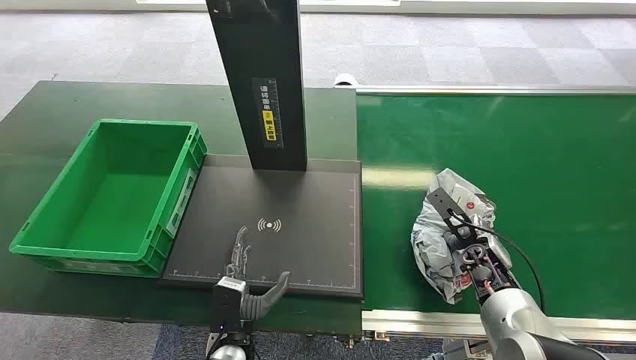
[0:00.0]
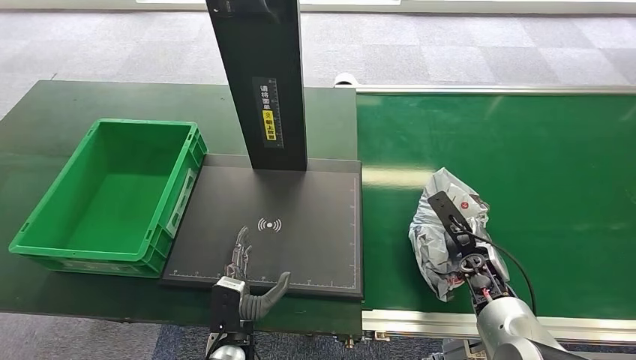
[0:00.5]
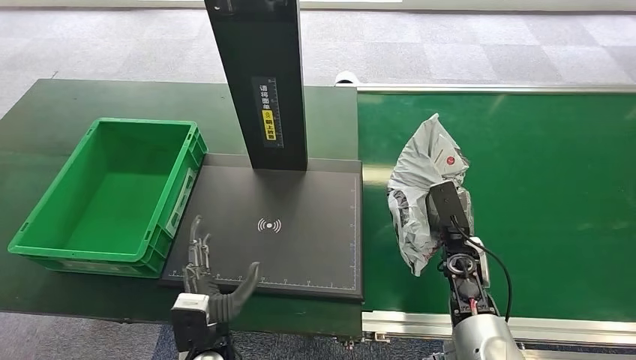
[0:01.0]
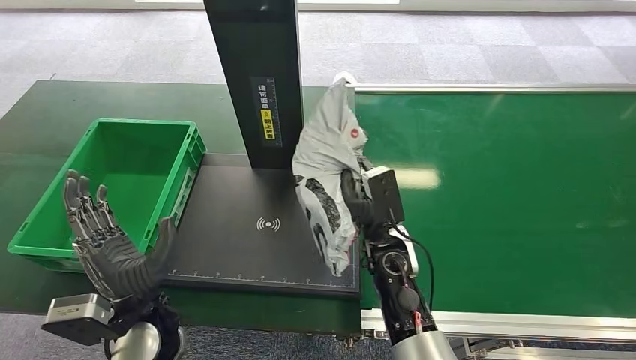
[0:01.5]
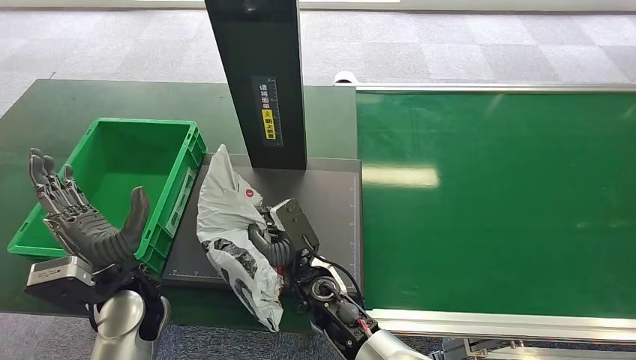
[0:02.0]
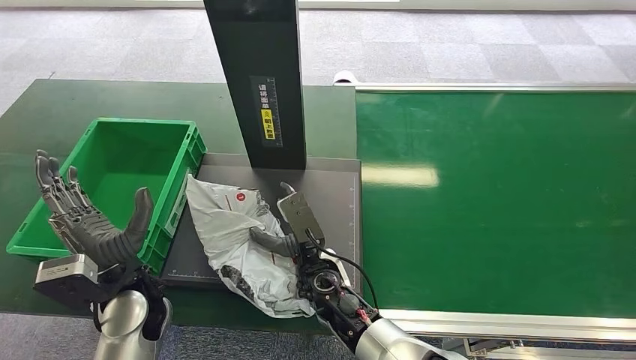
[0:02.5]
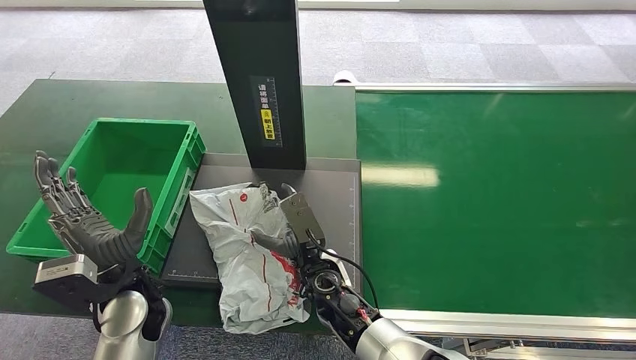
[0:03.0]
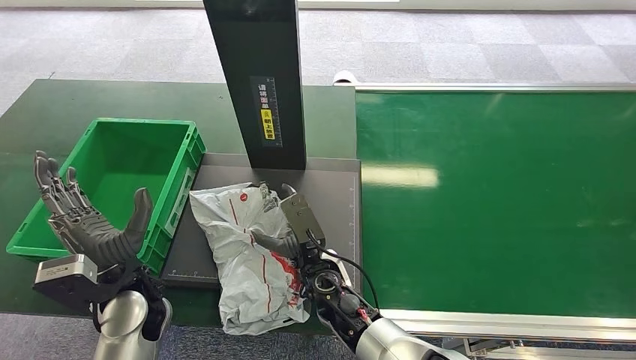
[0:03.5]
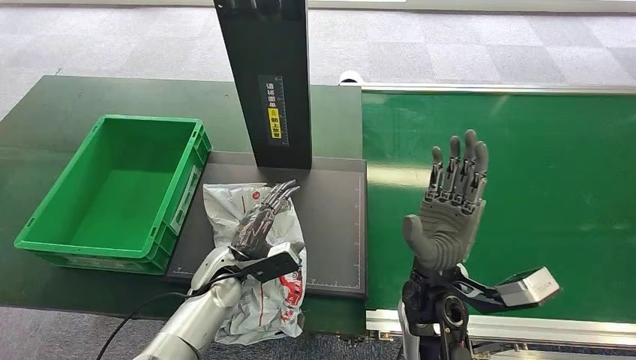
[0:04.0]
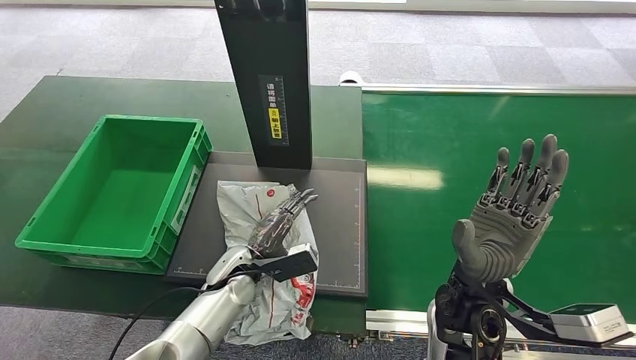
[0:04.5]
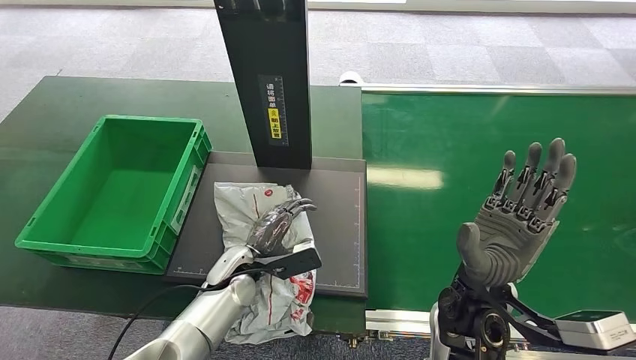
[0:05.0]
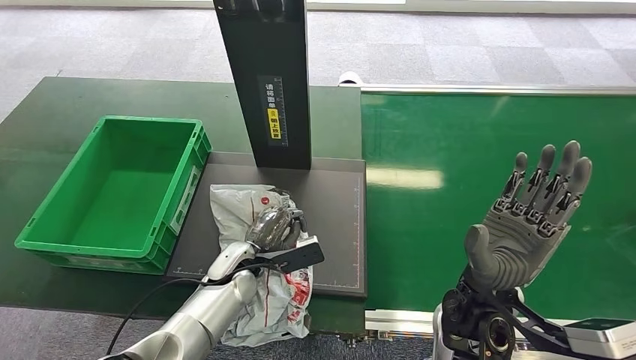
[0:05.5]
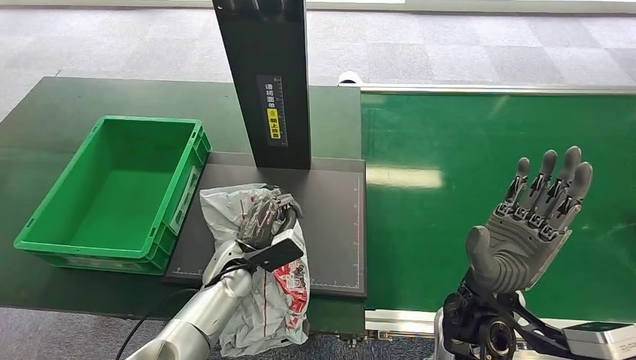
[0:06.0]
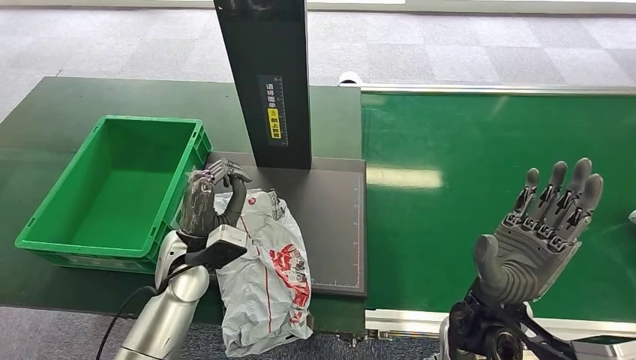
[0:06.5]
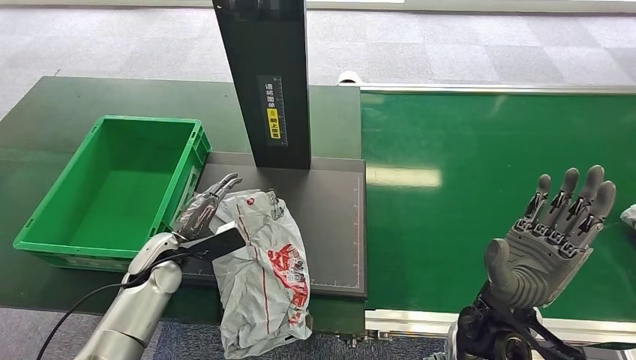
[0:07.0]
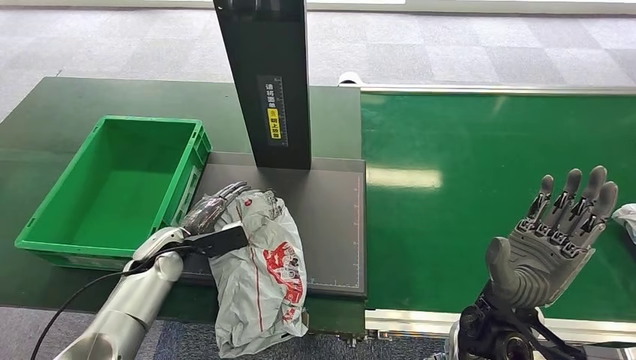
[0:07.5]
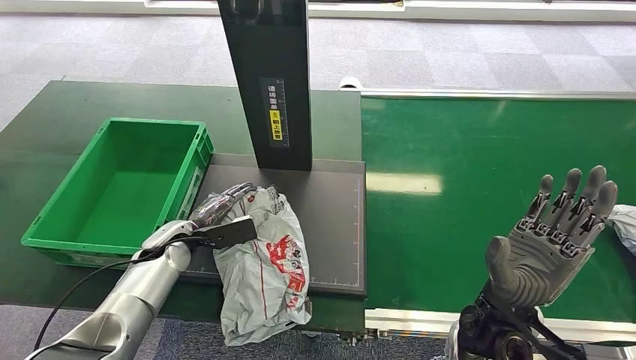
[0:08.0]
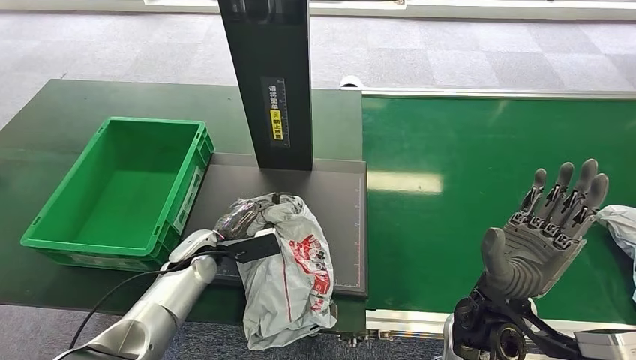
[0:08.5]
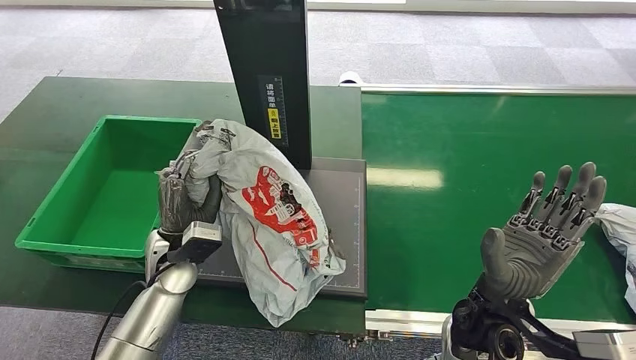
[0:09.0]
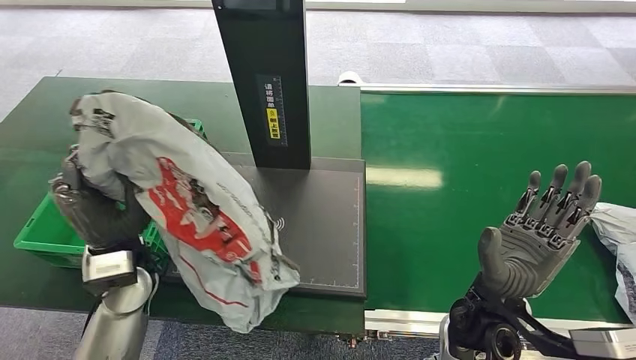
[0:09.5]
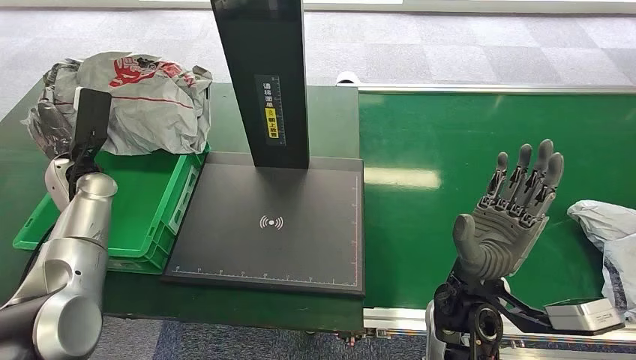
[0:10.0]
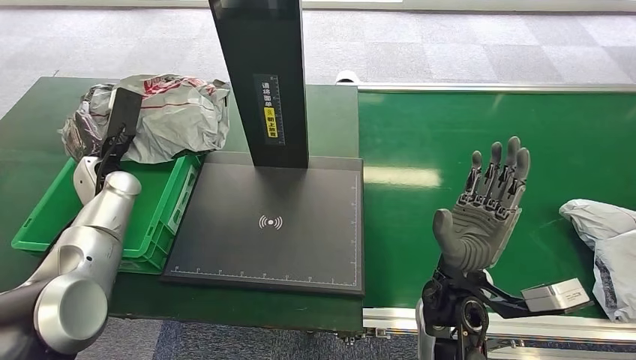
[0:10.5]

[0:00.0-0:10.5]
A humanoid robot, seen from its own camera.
Step, 0:00.0 to 0:01.0: Pick up the package from the conveyor belt.
Step, 0:02.0 to 0:03.5: Place the package onto the inbound machine.
Step, 0:04.0 to 0:09.0: Pick up the package from the inbound machine.
0:04.0 to 0:06.5: The right hand shifts roughly 5 cm to the right. Meanwhile the left hand heads upward, covering roughly 5 cm.

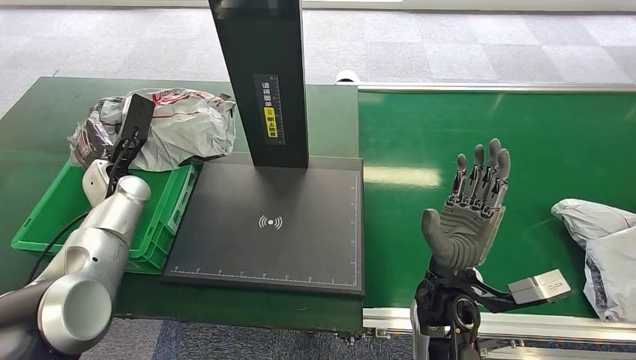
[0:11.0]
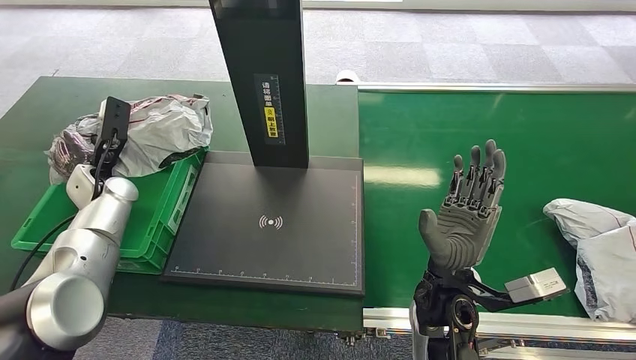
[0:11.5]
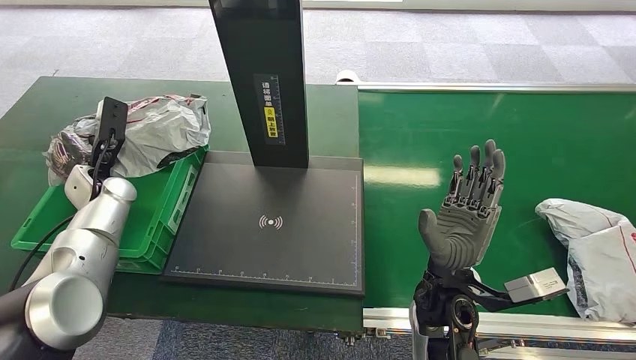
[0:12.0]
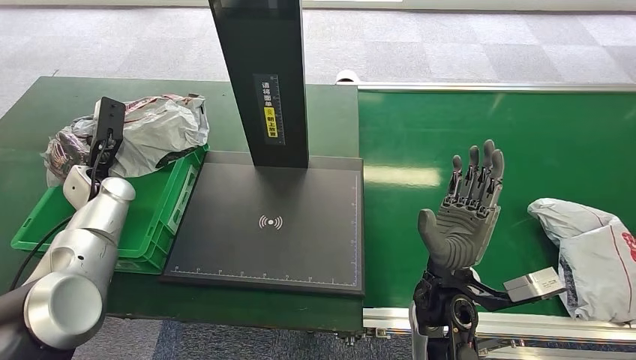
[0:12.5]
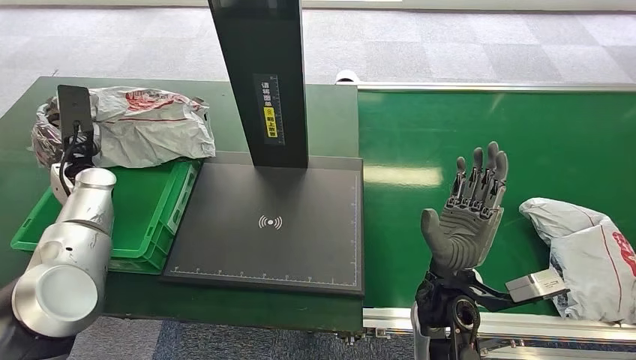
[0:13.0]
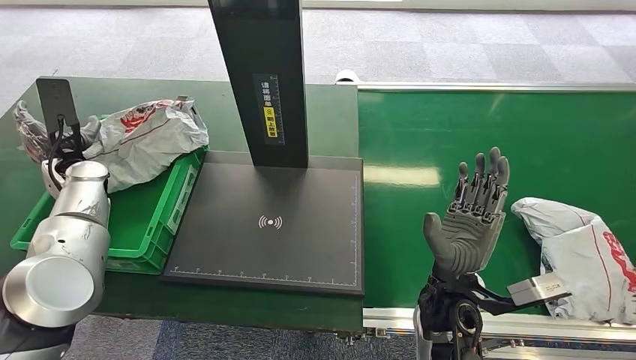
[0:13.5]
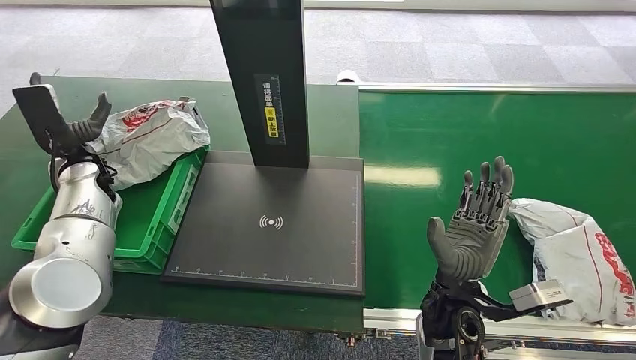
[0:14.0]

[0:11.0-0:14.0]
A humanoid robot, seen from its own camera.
Step, 0:11.0 to 0:14.0: Place the package into the parcel locker.
0:11.0 to 0:12.5: The hands stay close to where they were, moving slightly.

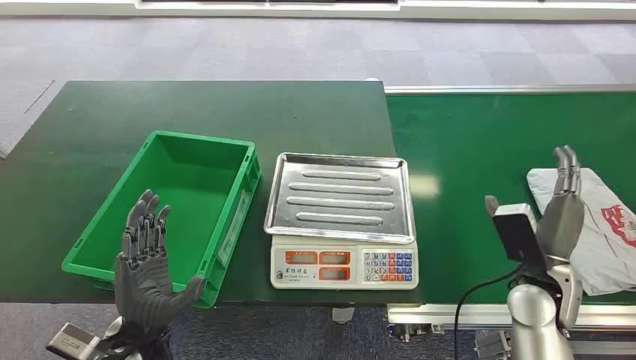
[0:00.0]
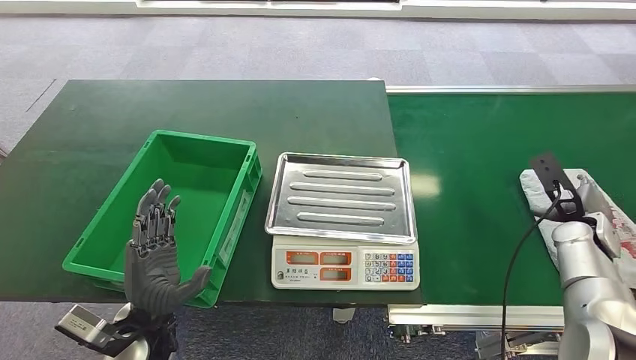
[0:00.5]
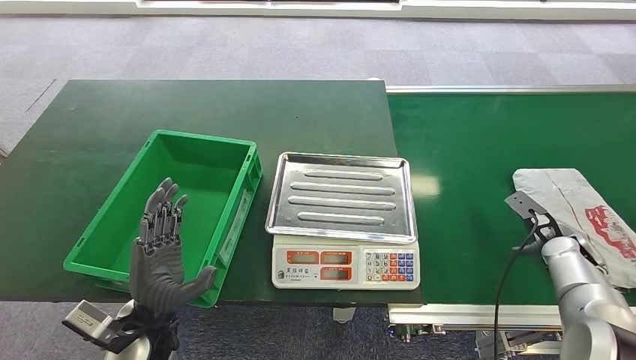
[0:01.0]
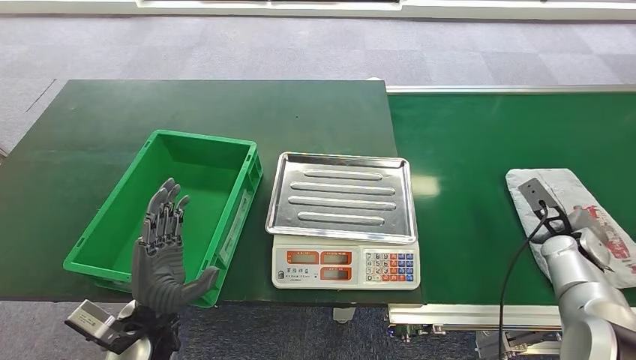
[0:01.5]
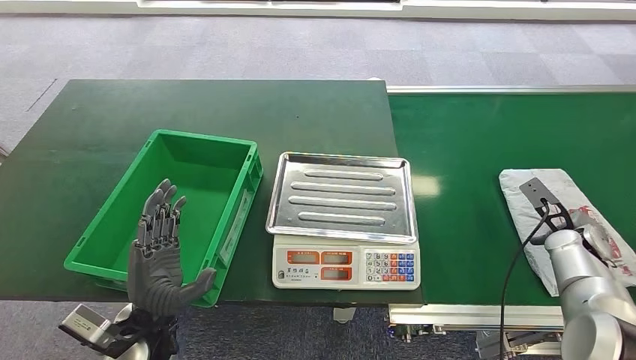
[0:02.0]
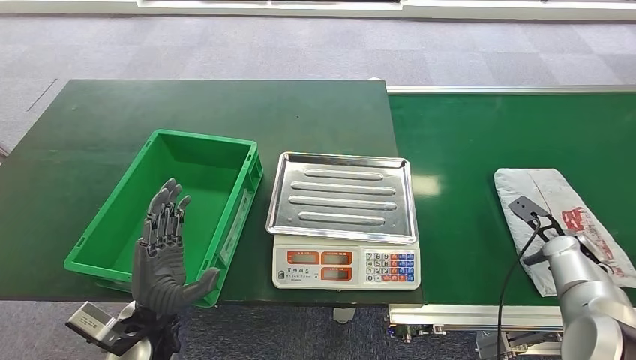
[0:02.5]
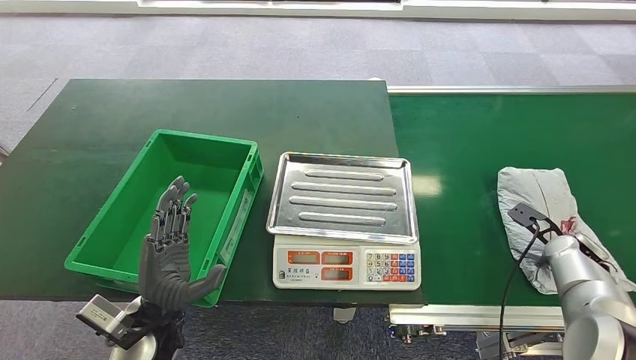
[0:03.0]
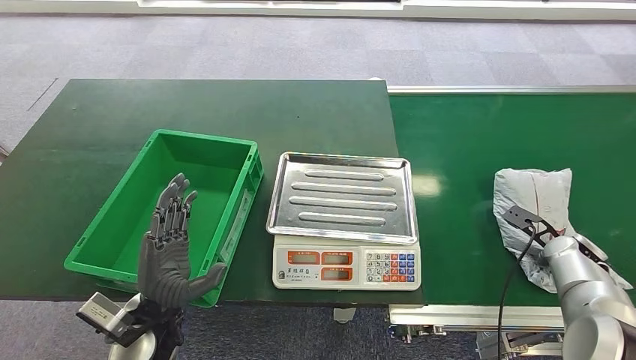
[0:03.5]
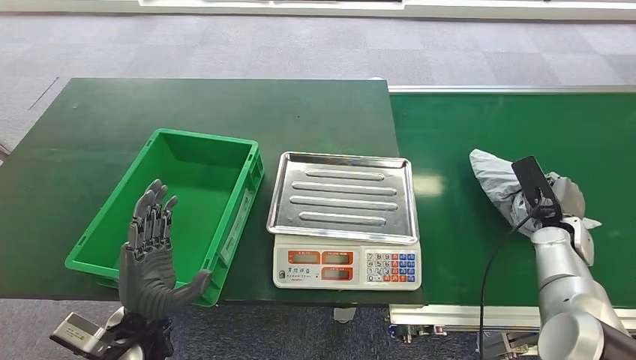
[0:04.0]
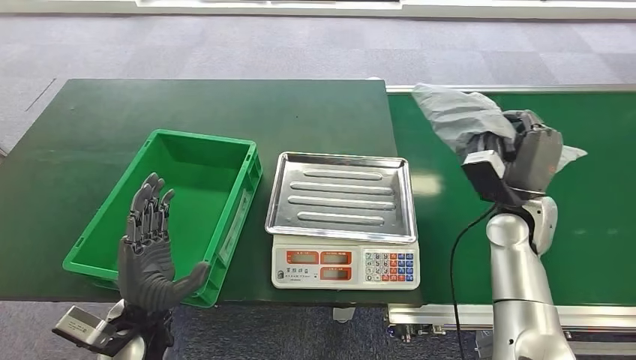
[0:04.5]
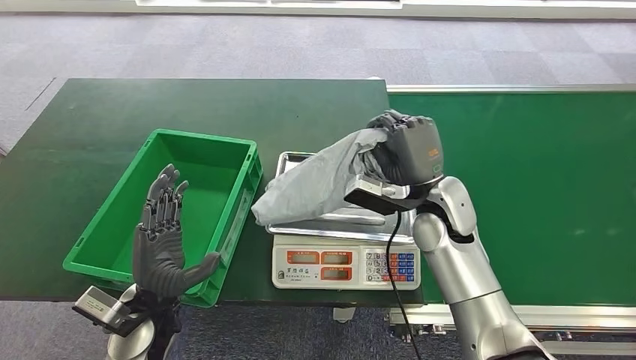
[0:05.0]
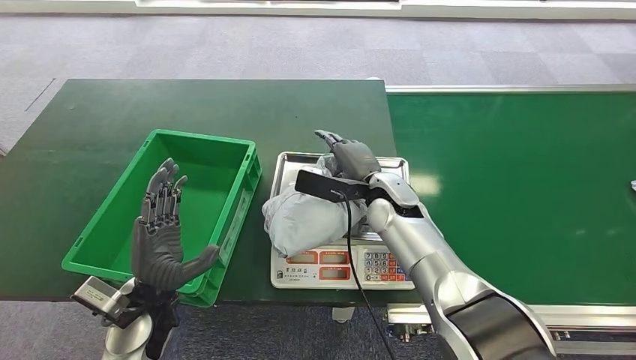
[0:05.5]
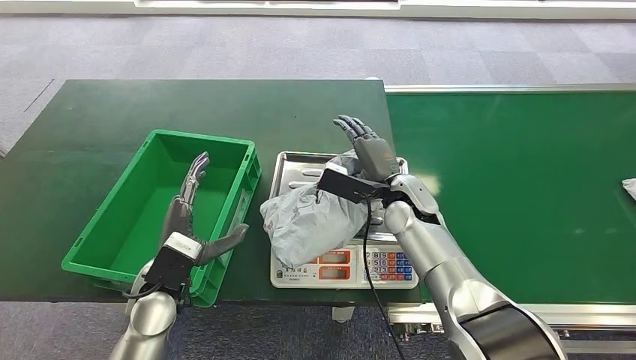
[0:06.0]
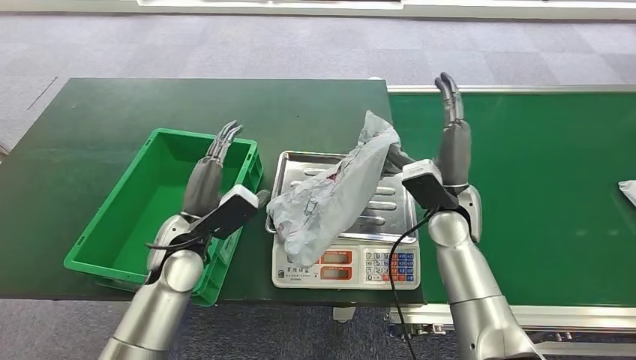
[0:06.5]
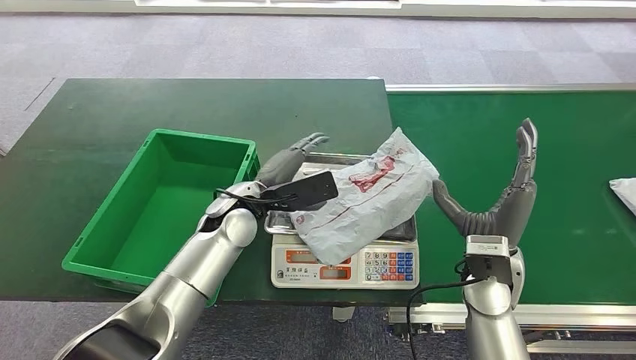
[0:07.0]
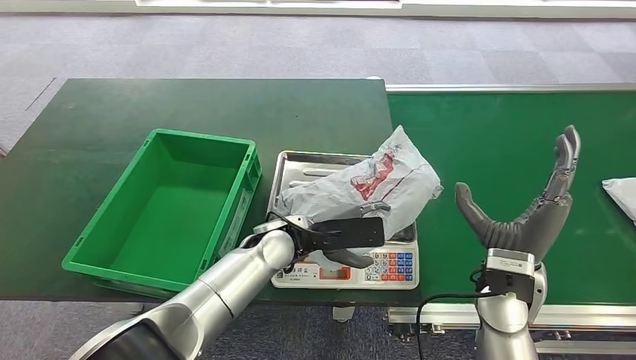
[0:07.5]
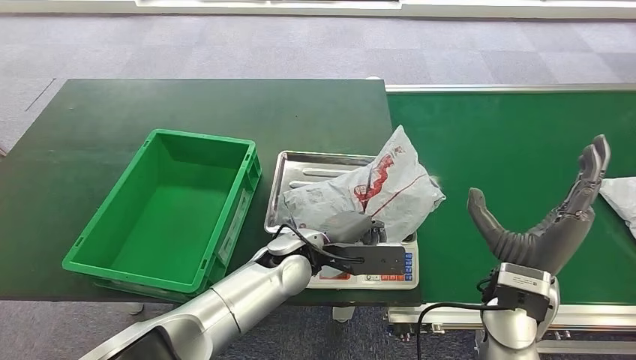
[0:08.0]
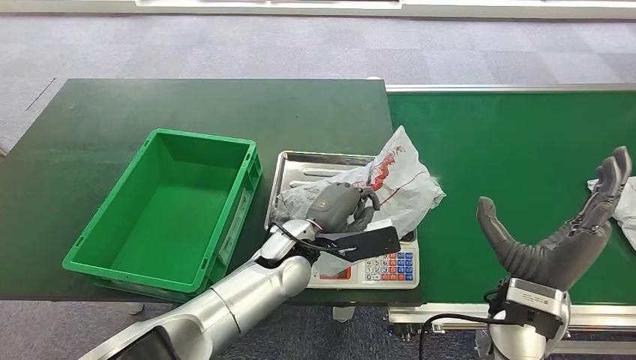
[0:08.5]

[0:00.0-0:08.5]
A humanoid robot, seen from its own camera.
Step, 0:00.0 to 0:04.0: Pick up the package from the conveyor belt.
Step, 0:05.0 to 0:06.0: Place the package onto the inbound machine.
